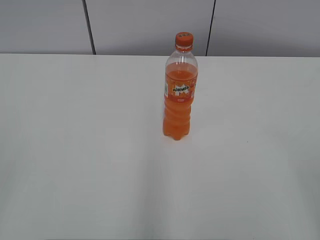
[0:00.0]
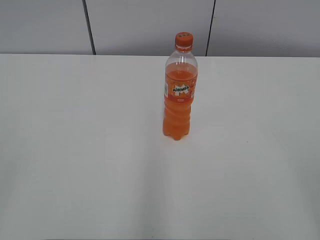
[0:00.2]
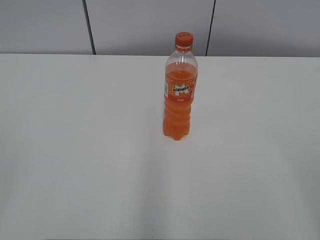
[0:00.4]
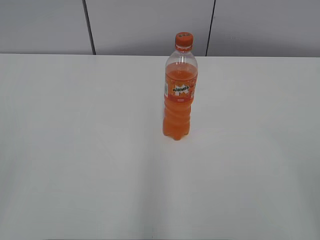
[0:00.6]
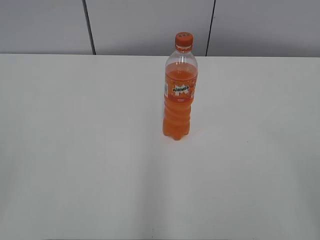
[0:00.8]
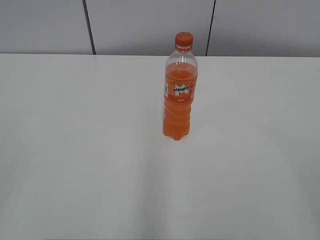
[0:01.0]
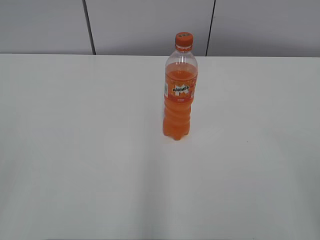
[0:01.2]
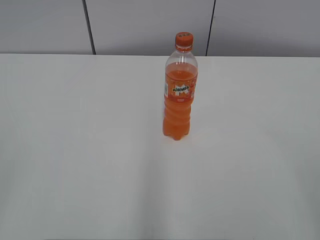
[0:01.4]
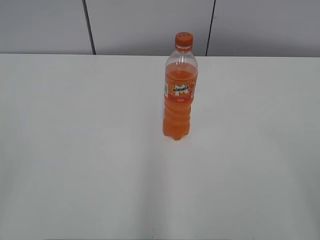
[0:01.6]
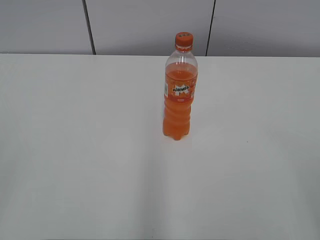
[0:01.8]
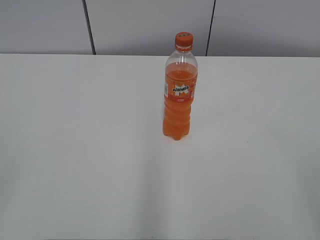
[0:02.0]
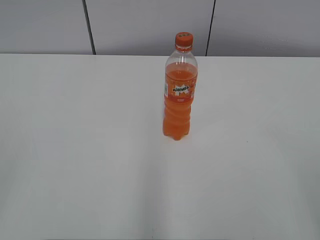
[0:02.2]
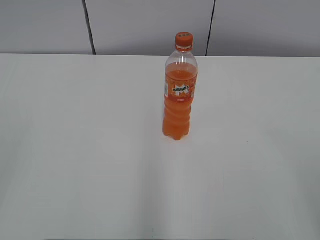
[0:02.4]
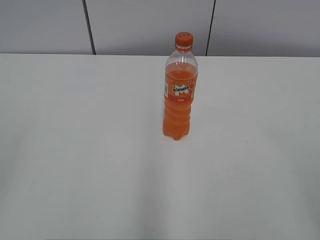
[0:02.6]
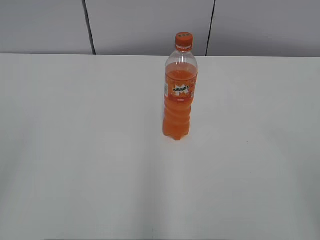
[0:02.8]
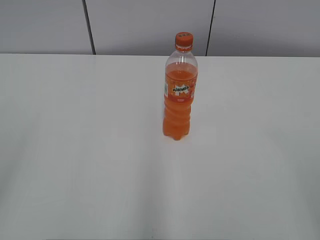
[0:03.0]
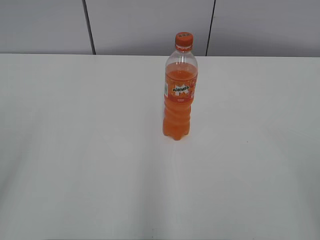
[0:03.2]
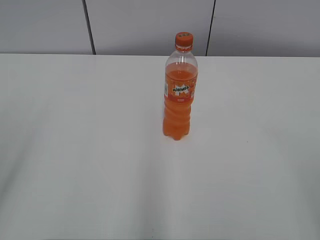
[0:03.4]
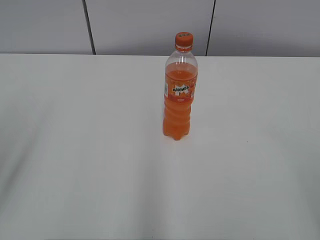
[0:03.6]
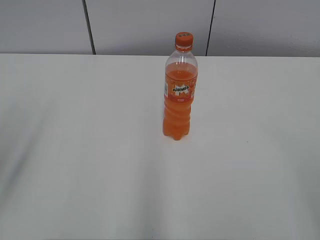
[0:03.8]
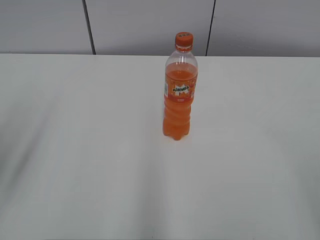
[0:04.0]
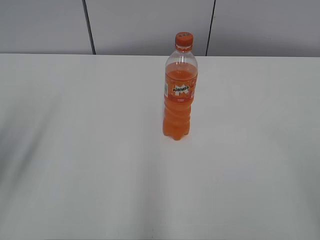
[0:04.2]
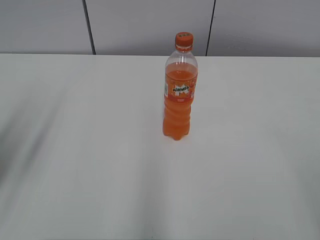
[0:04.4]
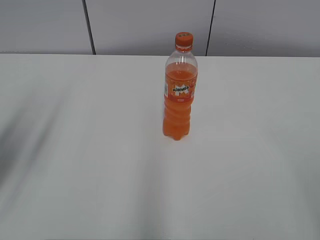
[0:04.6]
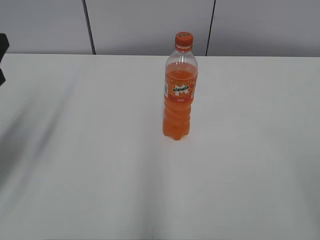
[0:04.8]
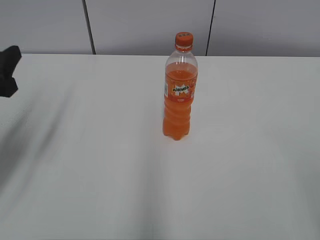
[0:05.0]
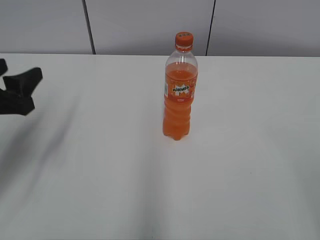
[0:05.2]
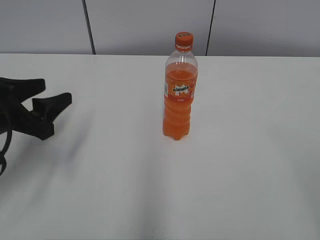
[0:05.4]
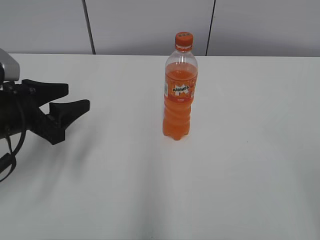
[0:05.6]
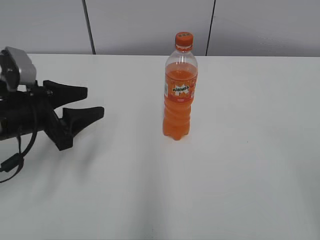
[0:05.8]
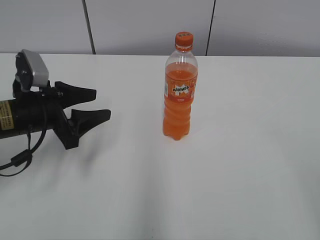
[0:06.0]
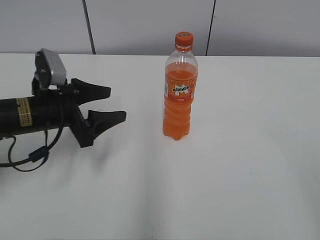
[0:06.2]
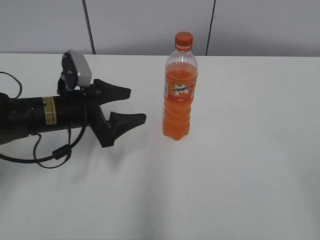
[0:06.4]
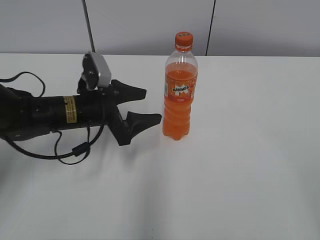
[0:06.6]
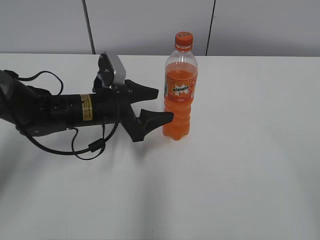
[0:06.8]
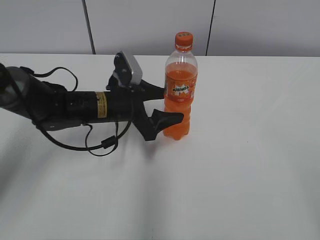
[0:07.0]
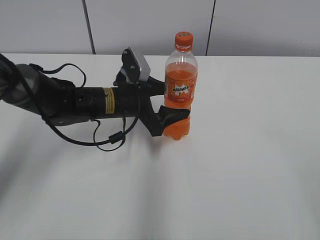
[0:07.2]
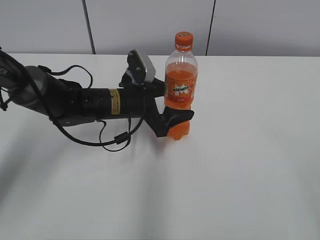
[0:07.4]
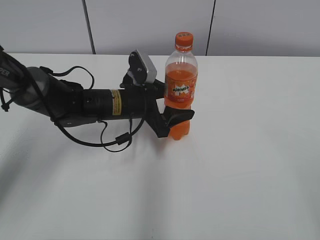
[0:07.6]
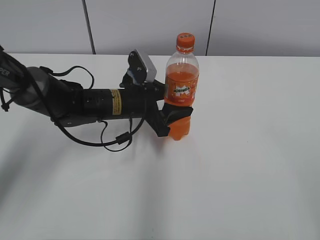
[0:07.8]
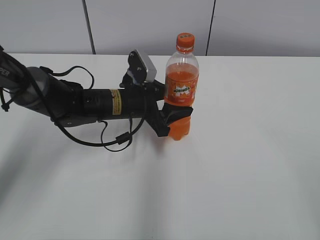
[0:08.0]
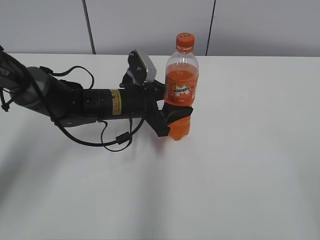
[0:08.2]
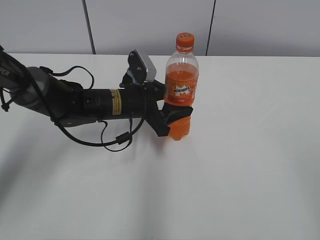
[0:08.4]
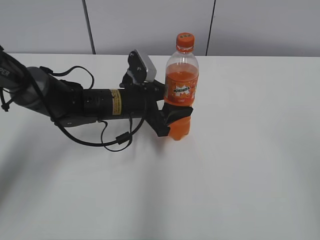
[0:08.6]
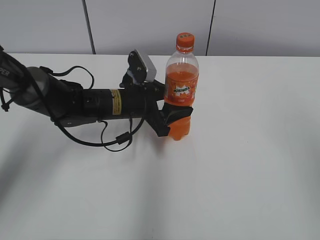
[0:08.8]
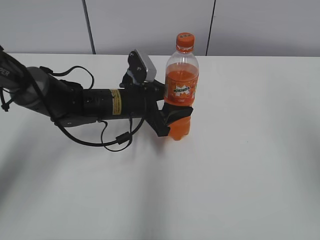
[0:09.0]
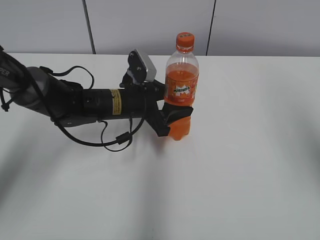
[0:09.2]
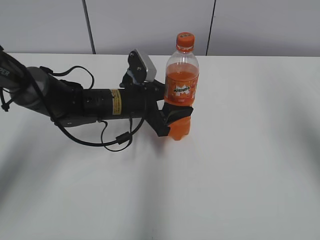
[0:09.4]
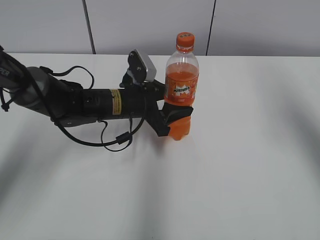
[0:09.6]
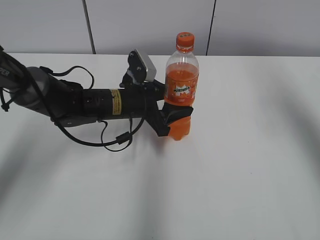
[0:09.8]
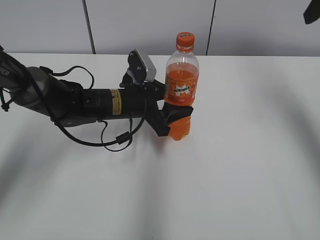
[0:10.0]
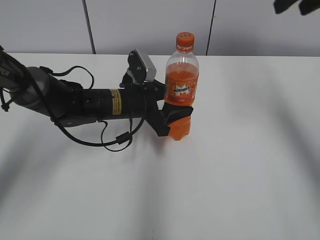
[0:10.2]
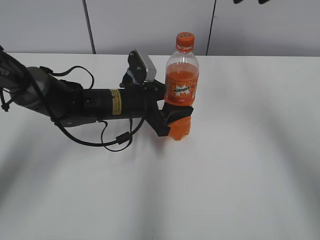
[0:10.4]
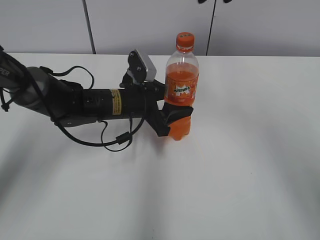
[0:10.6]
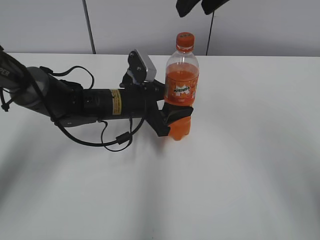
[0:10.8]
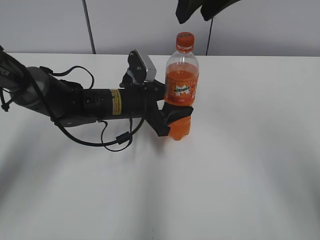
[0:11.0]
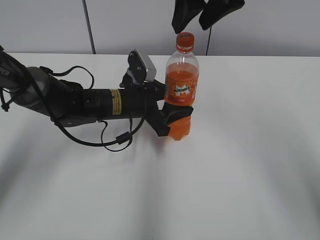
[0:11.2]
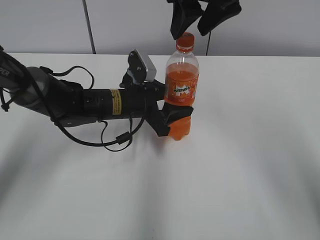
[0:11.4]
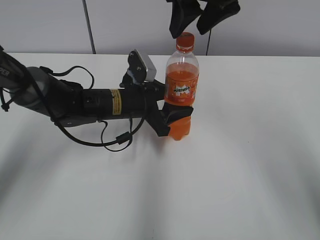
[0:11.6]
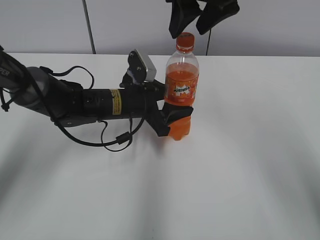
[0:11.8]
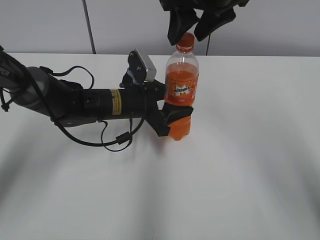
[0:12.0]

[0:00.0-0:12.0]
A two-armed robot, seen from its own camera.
Step, 0:00.0 to 0:08.0: Grab the Mirinda with the left hand.
0:03.0 to 0:04.4: The left gripper travels forward by roughly 15 cm.
0:04.4 to 0:06.0: The left gripper is displaced downward, forward and to the right by some 20 cm.
0:06.0 to 0:07.6: The left gripper goes some 15 cm to the right and forward, and opens.
0:07.6 to 0:09.0: The left gripper closes up. Meanwhile the right gripper heads upward and forward, covering approximately 15 cm.
0:09.0 to 0:10.4: The right gripper shifts about 25 cm forward and to the left.
0:10.4 to 0:12.0: The right gripper goes some 10 cm to the left and downward.

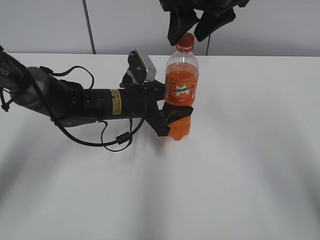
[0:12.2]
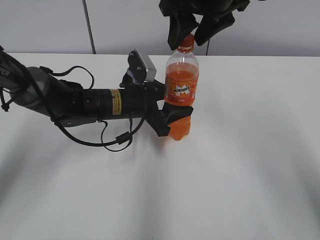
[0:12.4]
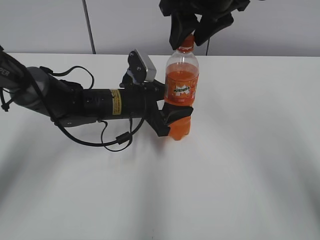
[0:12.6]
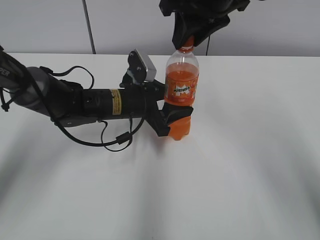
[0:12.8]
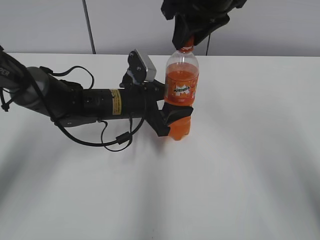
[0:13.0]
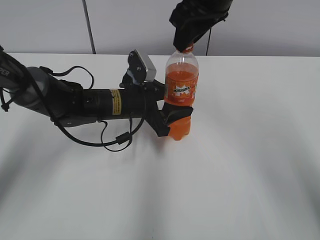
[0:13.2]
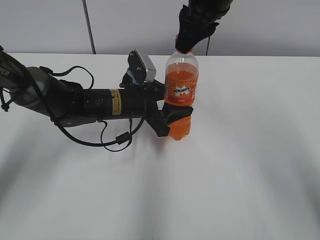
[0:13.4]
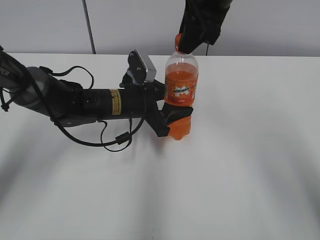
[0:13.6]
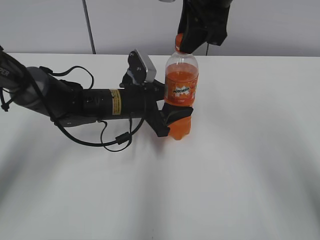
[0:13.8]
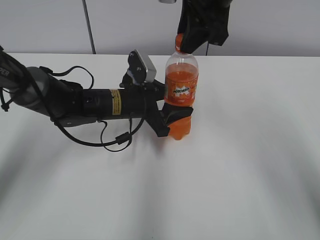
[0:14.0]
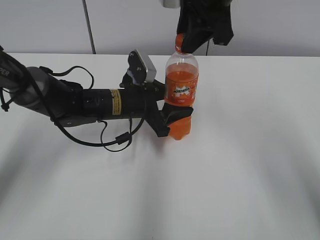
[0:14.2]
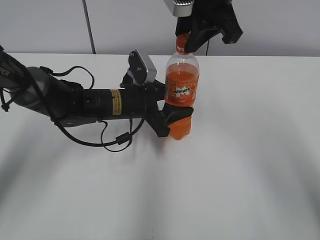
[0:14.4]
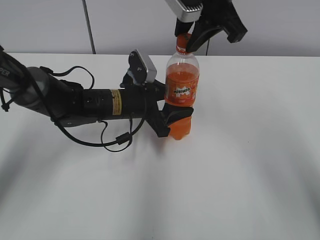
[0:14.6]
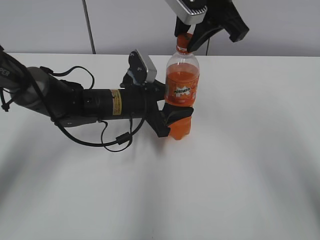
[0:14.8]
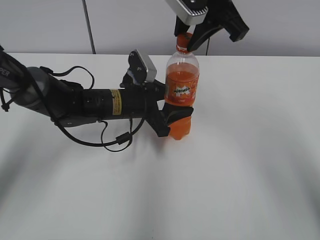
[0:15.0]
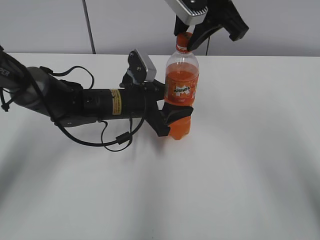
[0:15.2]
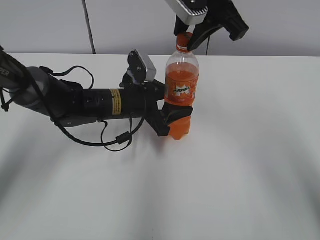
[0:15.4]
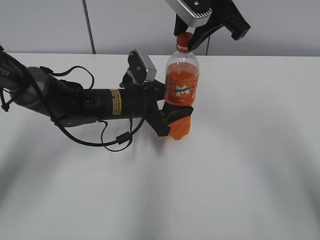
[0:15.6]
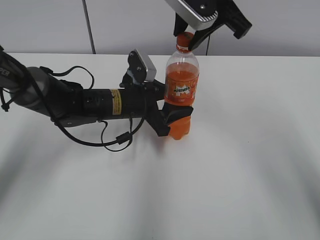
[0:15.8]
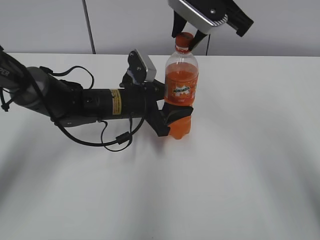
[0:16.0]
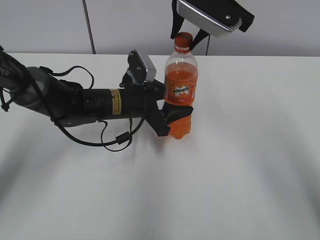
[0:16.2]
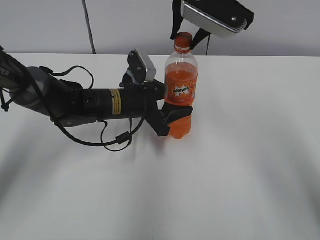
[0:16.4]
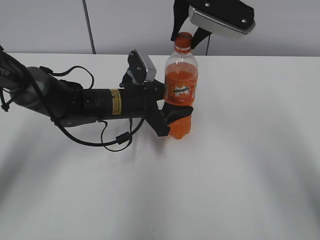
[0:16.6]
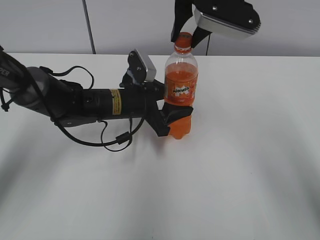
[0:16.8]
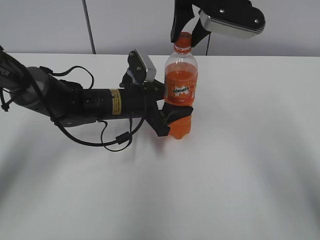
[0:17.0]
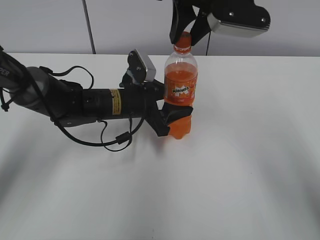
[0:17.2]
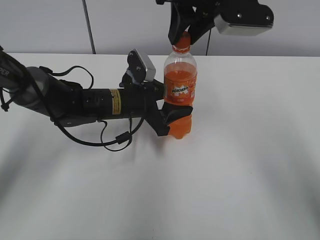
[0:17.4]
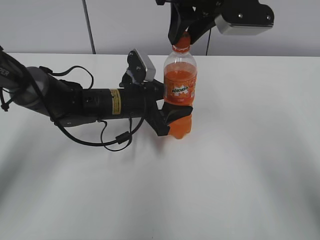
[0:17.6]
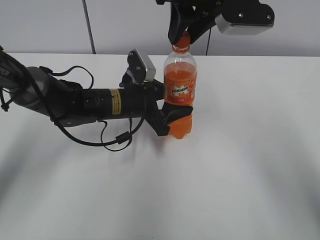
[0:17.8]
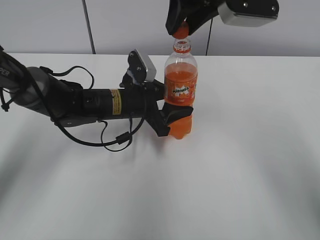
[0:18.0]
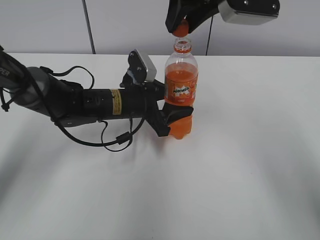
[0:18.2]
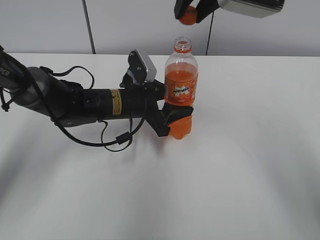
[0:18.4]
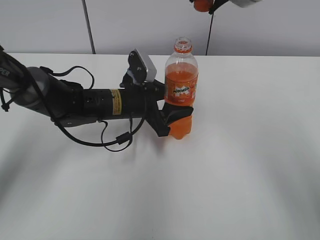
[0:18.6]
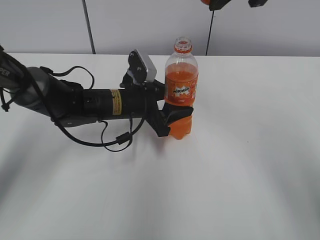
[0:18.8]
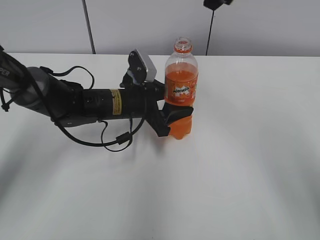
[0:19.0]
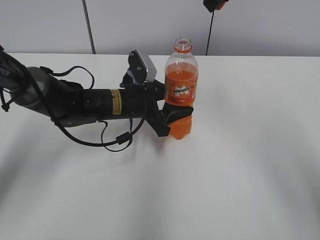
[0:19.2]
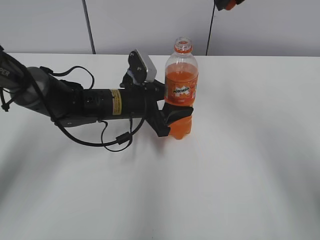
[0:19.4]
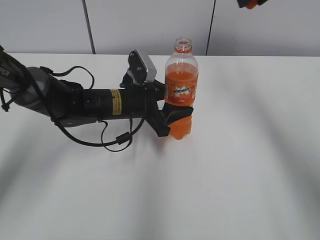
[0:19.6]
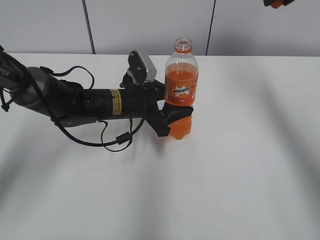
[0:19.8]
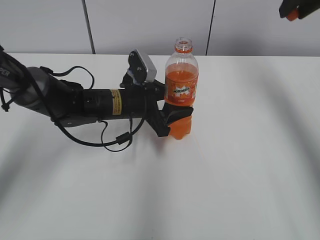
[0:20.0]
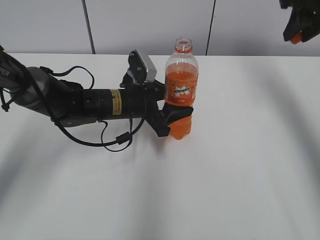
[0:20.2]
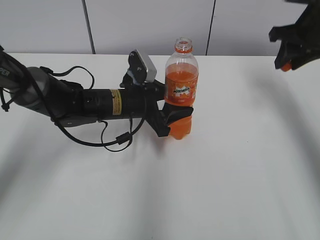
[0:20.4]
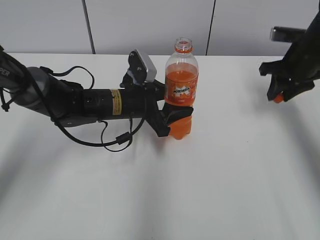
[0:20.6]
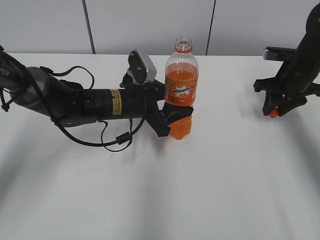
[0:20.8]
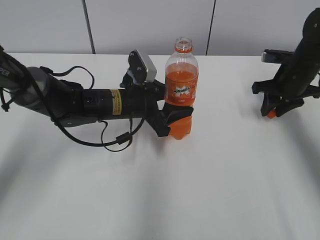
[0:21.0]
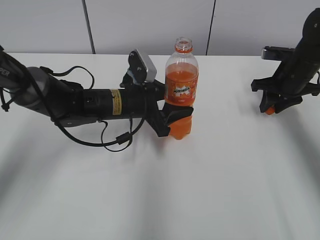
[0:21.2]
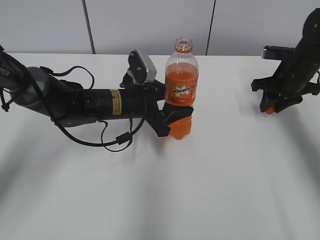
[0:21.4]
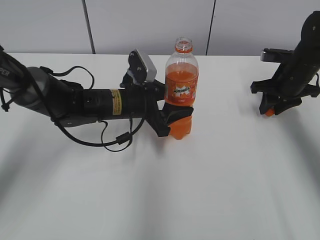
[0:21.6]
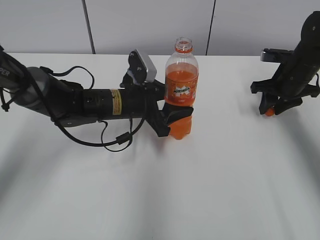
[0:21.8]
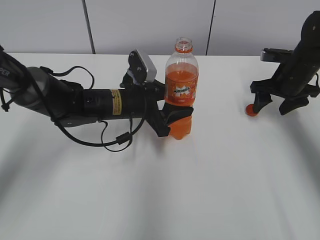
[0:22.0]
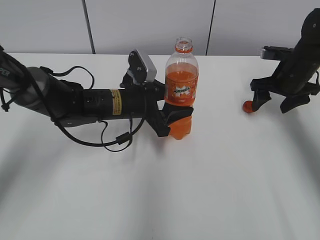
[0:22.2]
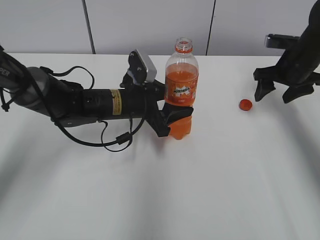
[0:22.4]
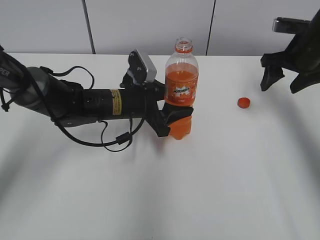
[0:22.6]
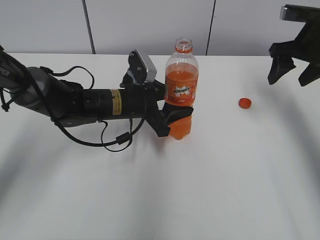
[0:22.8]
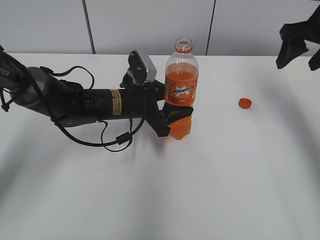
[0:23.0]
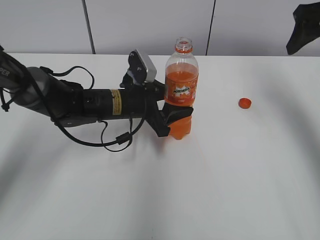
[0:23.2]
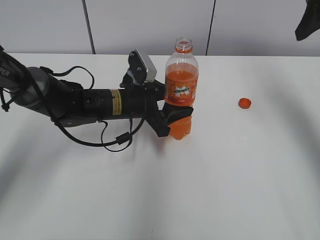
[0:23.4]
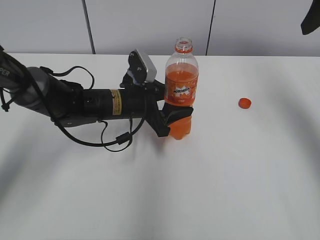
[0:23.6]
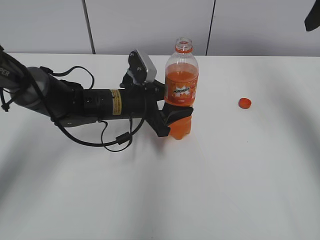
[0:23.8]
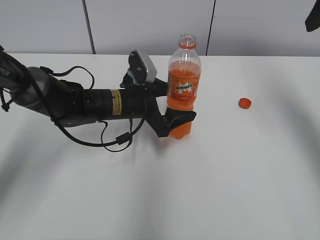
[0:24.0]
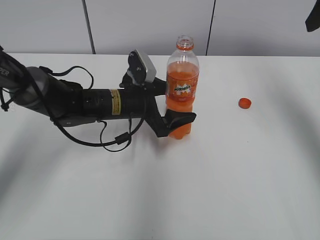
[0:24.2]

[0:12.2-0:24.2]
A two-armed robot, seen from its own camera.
Step, 0:18.0 to 0:22.2: Place the bottle cap on the right.
0:12.2 to 0:13.8: The right gripper closes its fingers.
0:18.2 to 0:19.8: The right gripper goes approximately 15 cm to the right.
0:19.8 to 0:21.2: The right gripper heads downward, covering some 25 cm.
0:21.2 to 0:22.6: The right gripper is displaced upward by about 5 cm, and opens.
0:22.6 to 0:24.2: The right gripper moves upward and backward, roughly 20 cm; the left gripper opens up.
